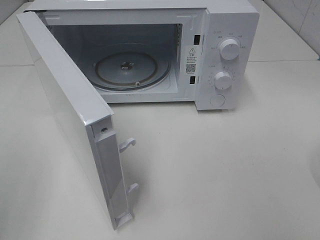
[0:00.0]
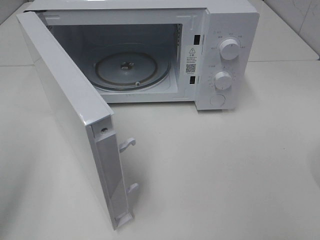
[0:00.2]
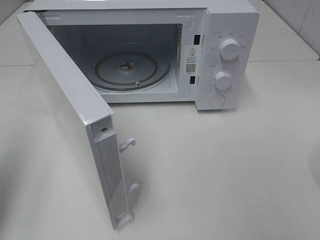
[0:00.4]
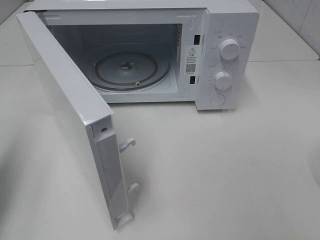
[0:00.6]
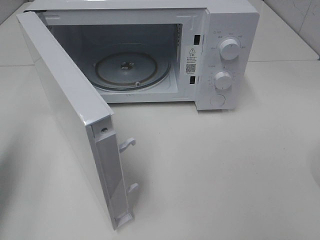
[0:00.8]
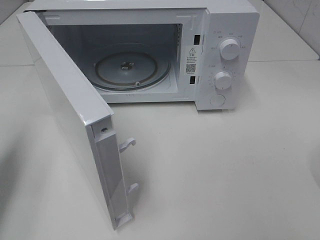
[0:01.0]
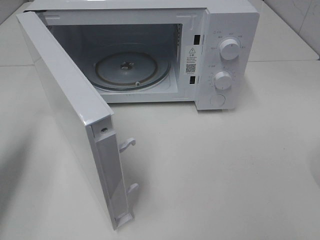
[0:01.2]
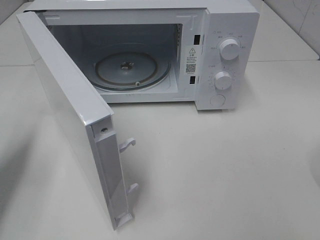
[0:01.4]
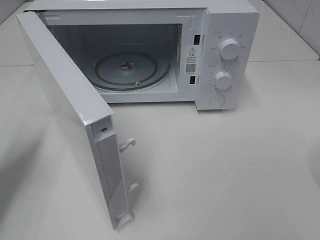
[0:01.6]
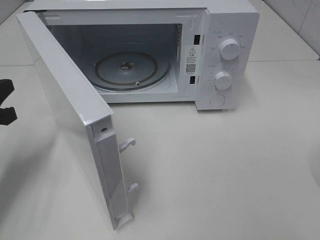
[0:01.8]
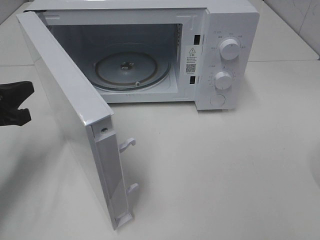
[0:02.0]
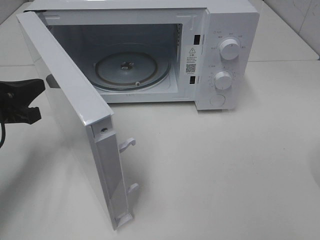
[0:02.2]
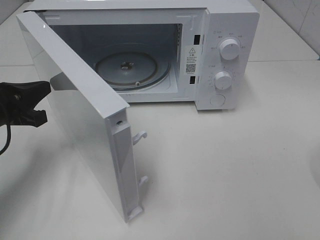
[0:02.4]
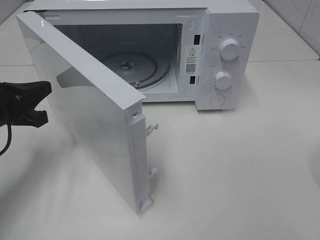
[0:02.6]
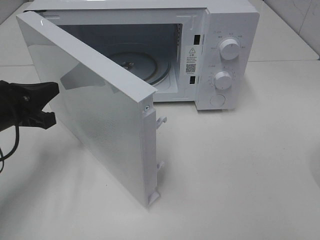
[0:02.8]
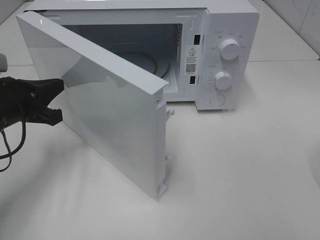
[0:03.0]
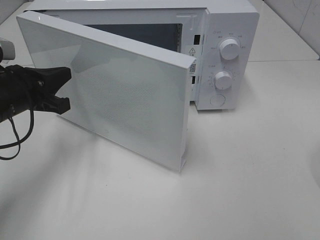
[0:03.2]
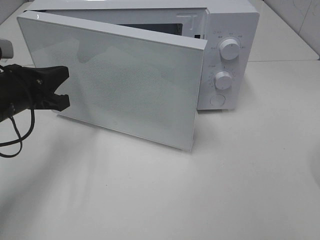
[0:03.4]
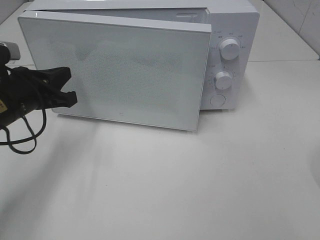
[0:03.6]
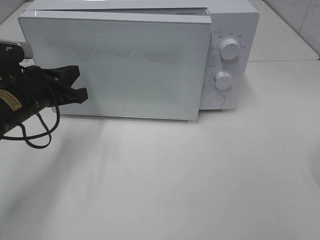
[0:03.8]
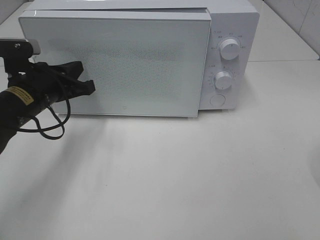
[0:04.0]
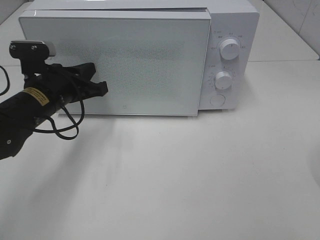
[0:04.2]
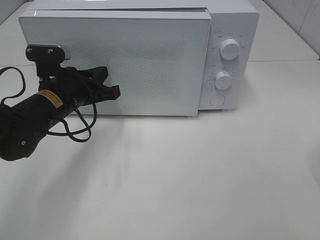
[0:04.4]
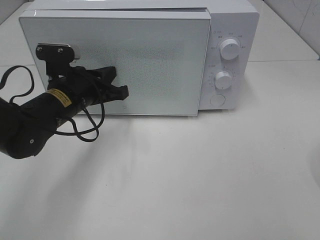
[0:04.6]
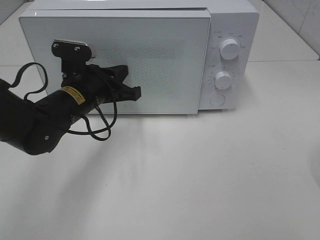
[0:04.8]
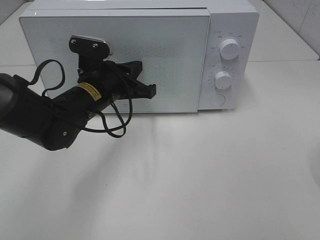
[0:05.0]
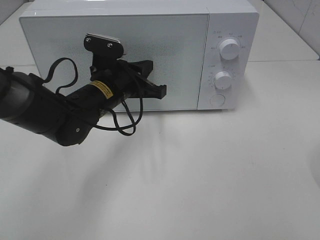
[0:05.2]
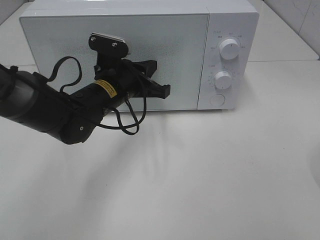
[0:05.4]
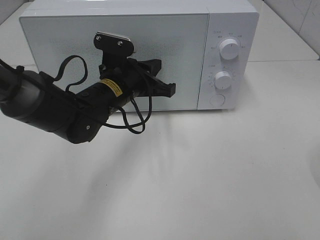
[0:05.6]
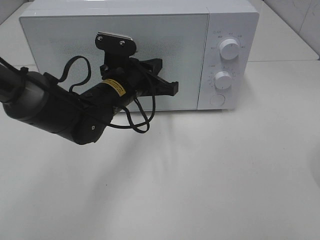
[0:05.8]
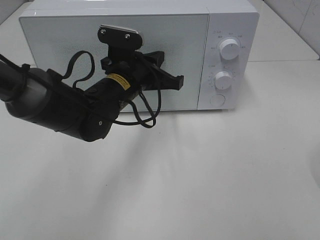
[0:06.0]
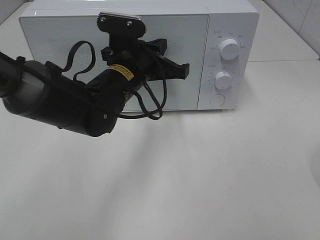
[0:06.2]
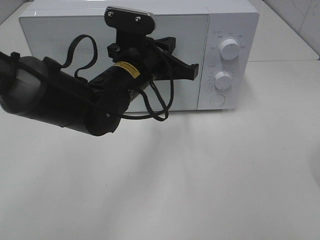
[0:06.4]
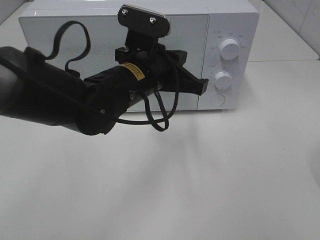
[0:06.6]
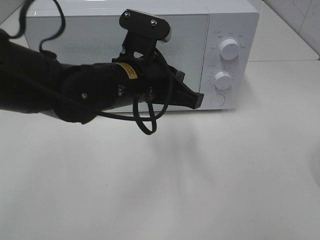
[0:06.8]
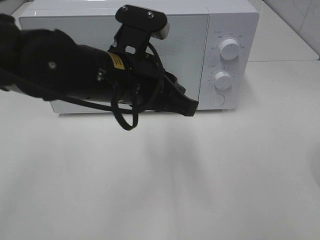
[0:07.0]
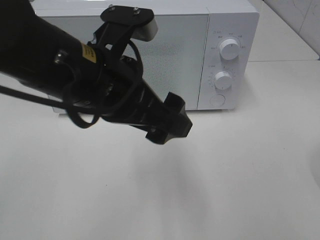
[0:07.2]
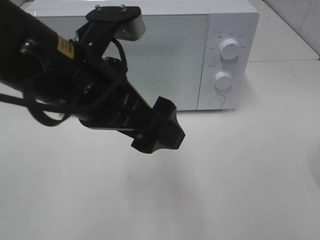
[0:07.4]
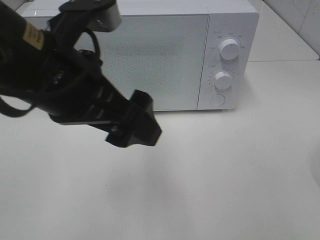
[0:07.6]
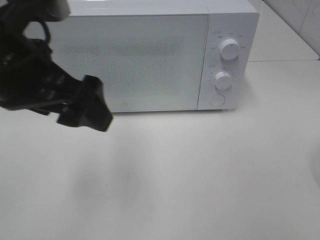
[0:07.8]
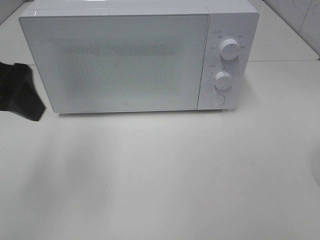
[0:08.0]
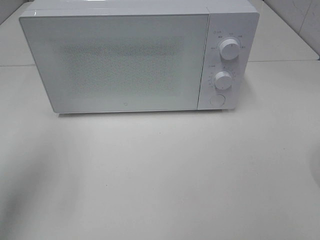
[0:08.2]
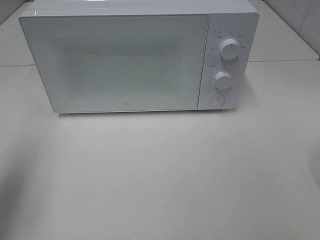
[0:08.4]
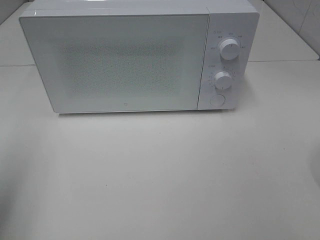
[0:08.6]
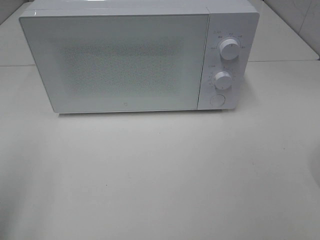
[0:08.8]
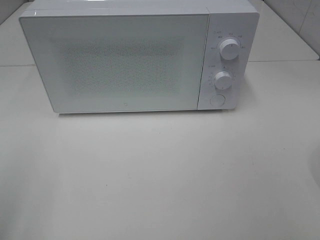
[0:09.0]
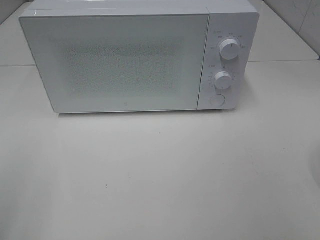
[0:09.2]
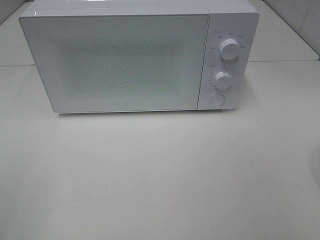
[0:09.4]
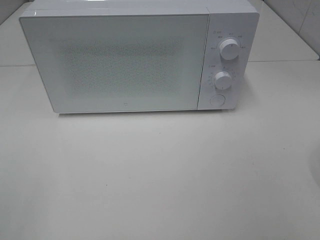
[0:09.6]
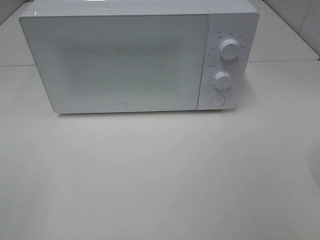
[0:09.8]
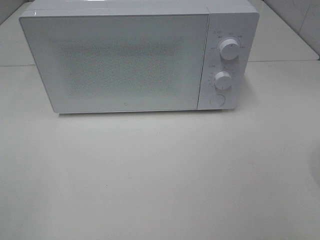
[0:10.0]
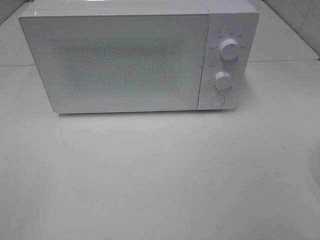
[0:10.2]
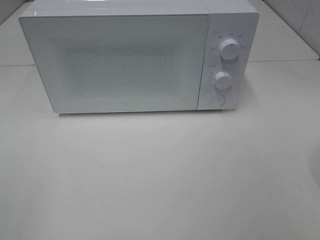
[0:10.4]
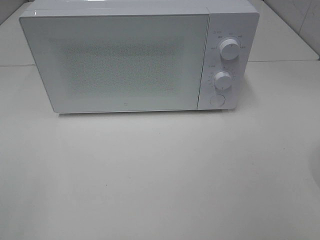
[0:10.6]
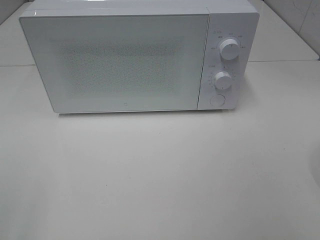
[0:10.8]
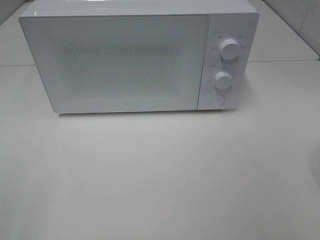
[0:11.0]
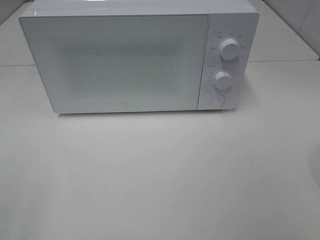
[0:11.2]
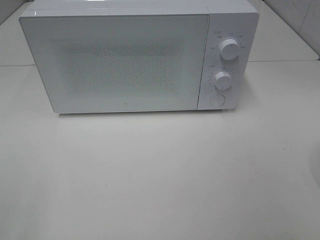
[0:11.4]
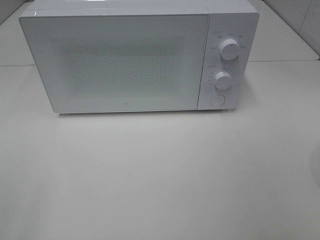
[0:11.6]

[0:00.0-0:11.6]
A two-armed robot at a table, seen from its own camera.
Task of the whole recording: Heat the burger.
Step, 0:00.0 to 0:07.0: Left hand: close the microwave door.
0:00.0 to 0:01.4: The left gripper heads forward and downward, covering roughly 20 cm, and closes.
0:01.4 to 0:02.8: The left gripper goes about 10 cm to the right and downward.
0:02.8 to 0:04.4: The left gripper is displaced to the right and forward by about 10 cm.
0:04.4 to 0:05.8: The left gripper shifts about 10 cm to the right.
0:05.8 to 0:07.2: The left gripper heads backward and upward, covering some 20 cm, and opens its fingers.
0:07.2 to 0:08.8: The left gripper travels to the left and backward by roughly 30 cm.
0:10.2 to 0:11.6: Neither gripper changes place.

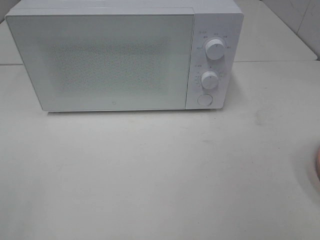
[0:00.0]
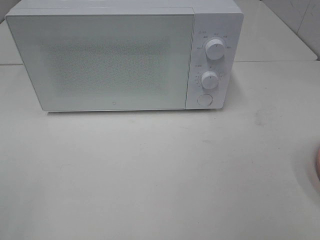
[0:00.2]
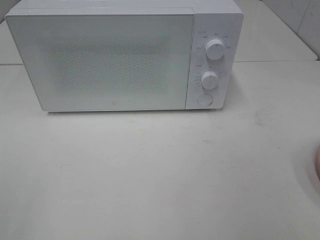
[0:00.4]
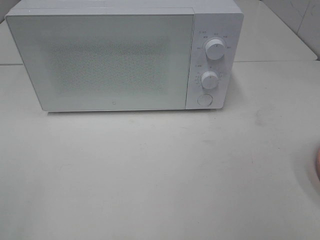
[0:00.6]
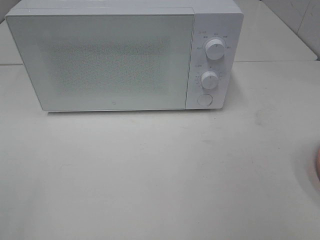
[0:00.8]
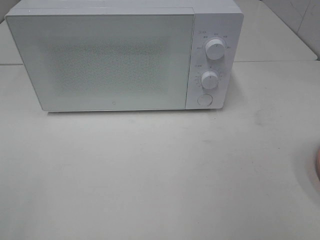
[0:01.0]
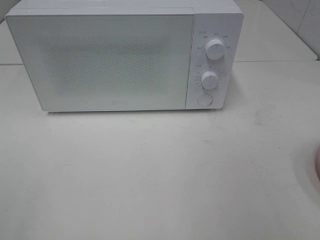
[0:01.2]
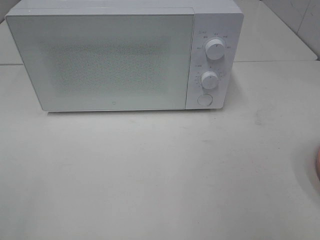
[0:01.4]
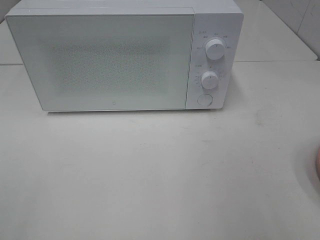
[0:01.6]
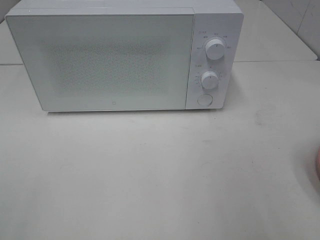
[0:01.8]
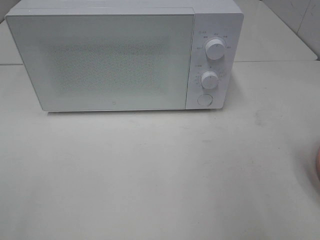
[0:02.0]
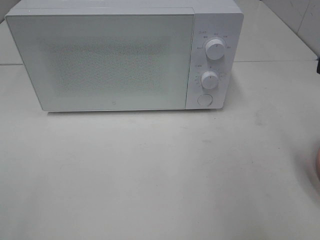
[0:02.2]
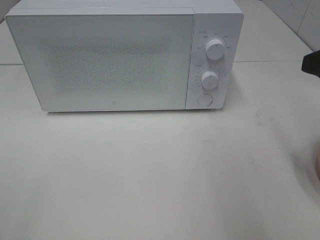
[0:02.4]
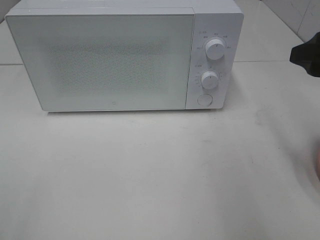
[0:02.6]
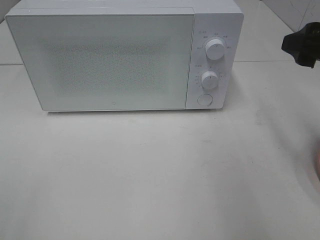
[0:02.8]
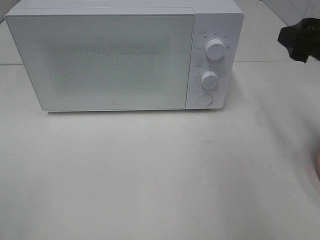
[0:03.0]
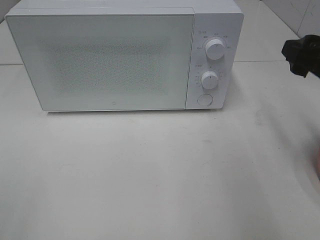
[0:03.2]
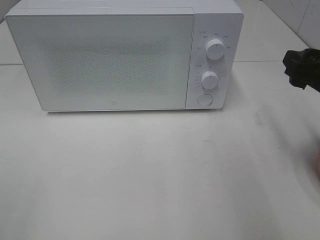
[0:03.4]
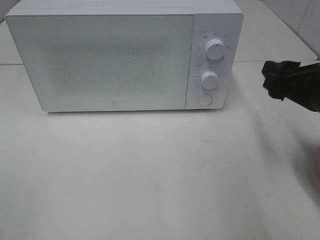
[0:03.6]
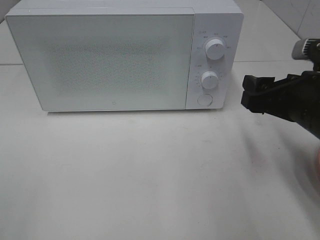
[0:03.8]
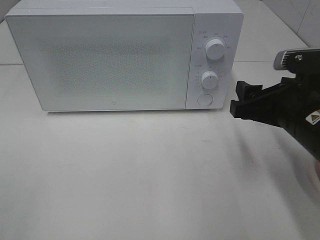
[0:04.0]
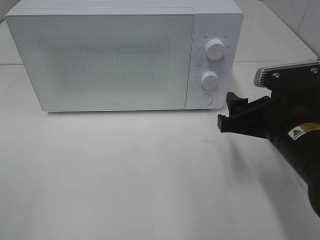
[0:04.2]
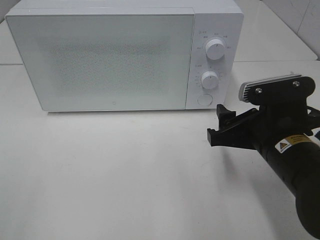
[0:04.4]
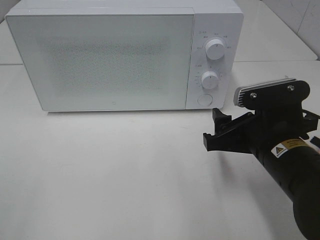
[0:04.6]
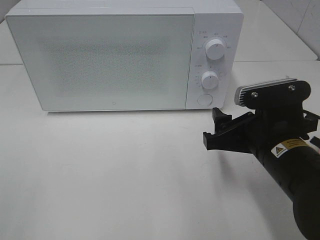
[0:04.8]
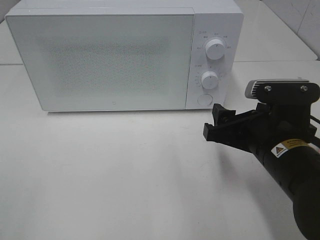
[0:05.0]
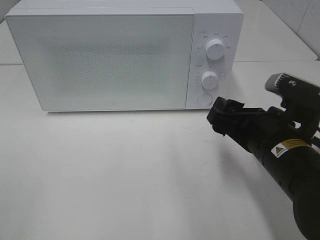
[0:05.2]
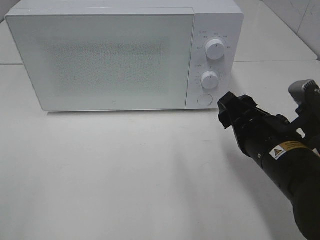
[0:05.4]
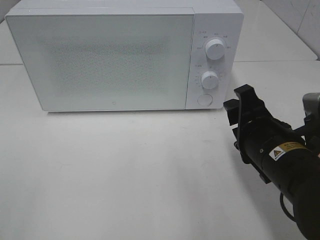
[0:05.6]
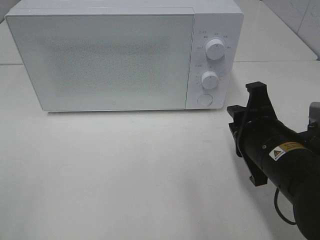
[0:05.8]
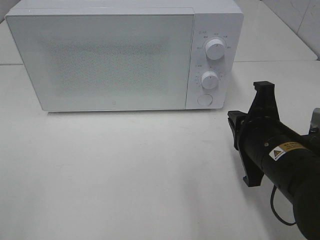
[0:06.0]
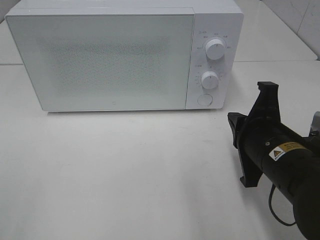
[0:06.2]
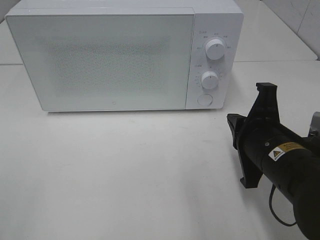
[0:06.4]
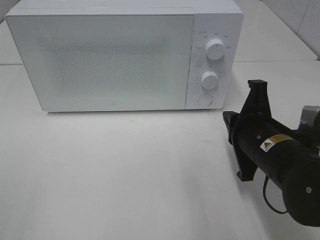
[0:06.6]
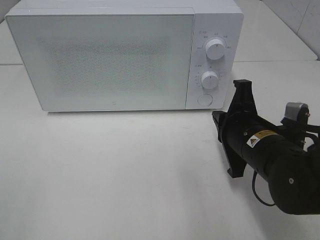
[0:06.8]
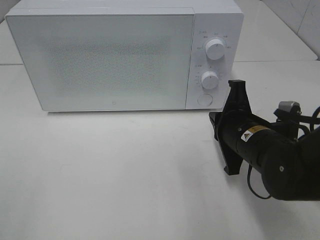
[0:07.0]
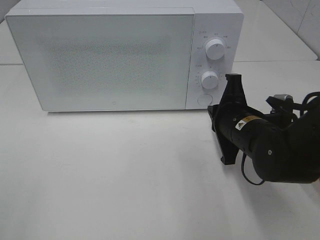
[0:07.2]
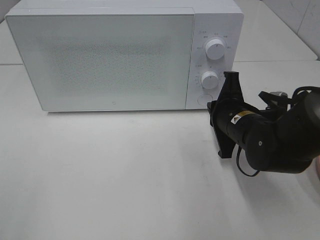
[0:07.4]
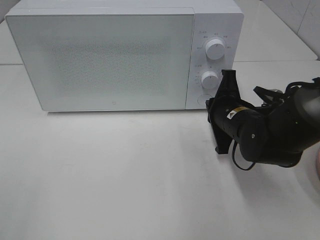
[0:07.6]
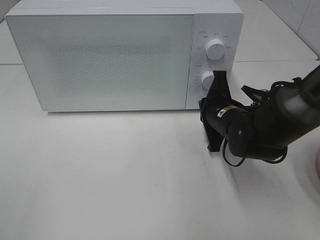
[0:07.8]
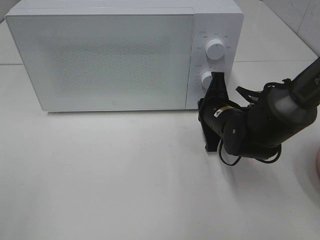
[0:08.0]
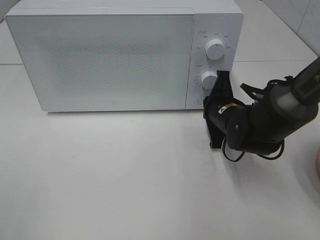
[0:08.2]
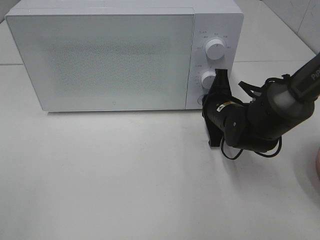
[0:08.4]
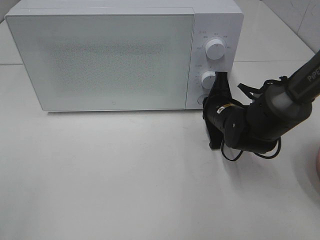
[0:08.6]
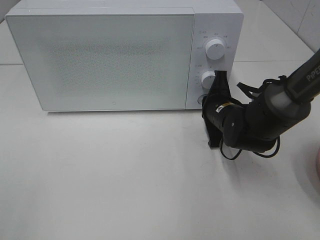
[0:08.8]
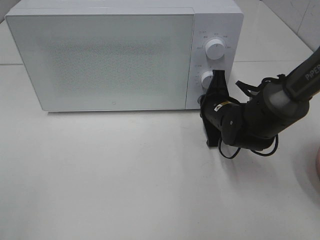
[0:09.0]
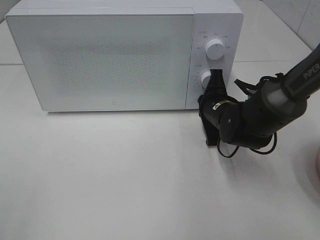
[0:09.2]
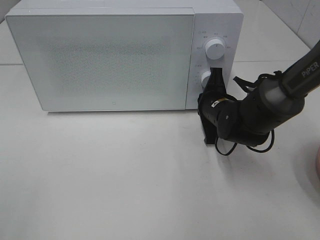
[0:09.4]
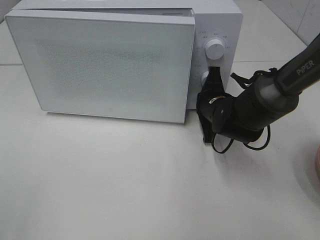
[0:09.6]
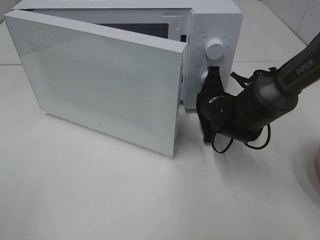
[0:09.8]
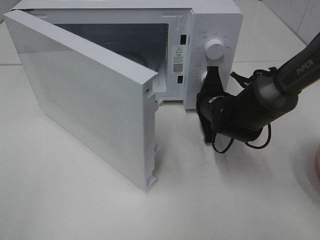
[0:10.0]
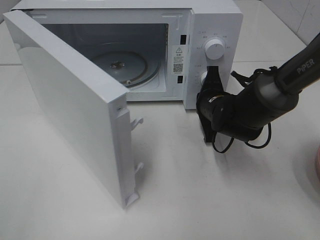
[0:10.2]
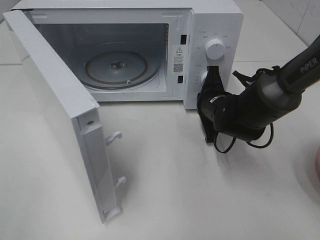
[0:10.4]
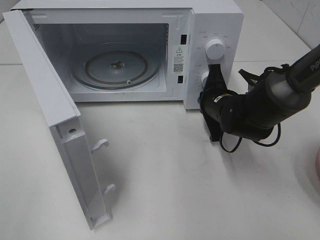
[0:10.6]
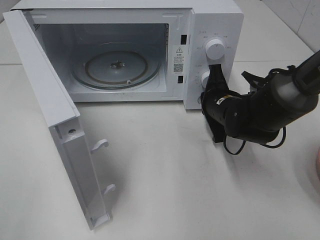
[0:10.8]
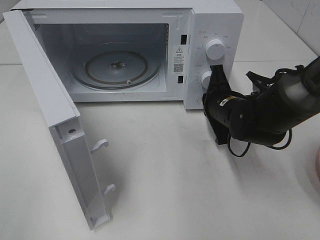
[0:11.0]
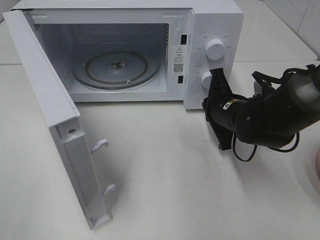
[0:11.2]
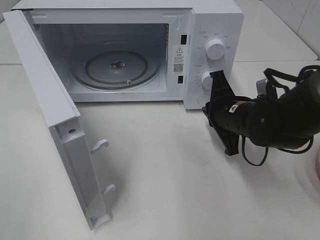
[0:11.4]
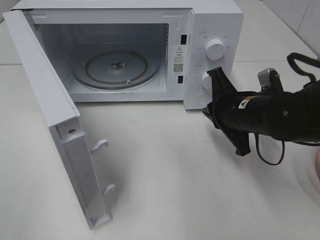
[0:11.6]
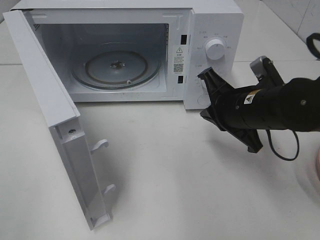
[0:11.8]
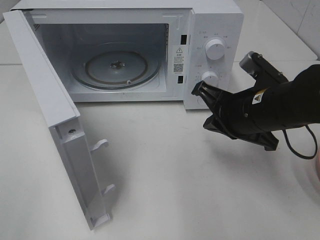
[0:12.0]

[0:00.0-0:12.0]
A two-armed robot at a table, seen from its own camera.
Task of the whole recording: Heat the burger.
Step, 0:00.0 to 0:11.2: Right hand: press the switch.
0:01.6 to 0:03.0: The right gripper shifts roughly 15 cm forward.
0:03.0 to 0:04.4: The right gripper heads downward and to the left, covering roughly 15 cm.
0:04.4 to 0:06.0: The right gripper closes up.
0:06.0 to 0:07.6: The right gripper travels forward by about 10 cm.
0:07.6 to 0:09.0: The right gripper shifts by roughly 5 cm.
0:10.4 to 0:12.0: The right gripper shifts roughly 15 cm backward and upward.
